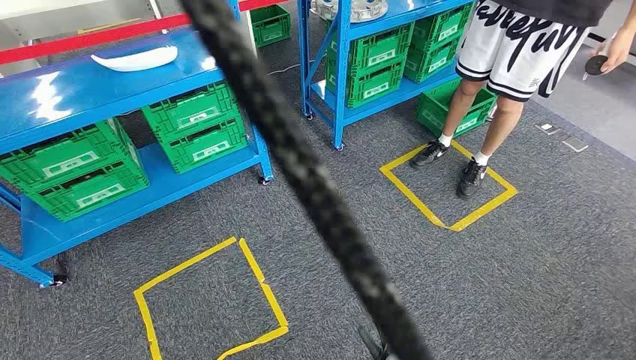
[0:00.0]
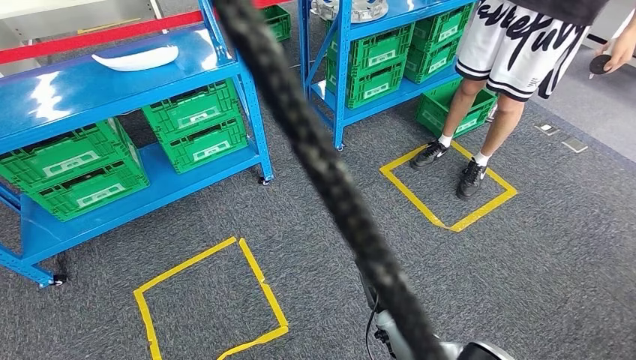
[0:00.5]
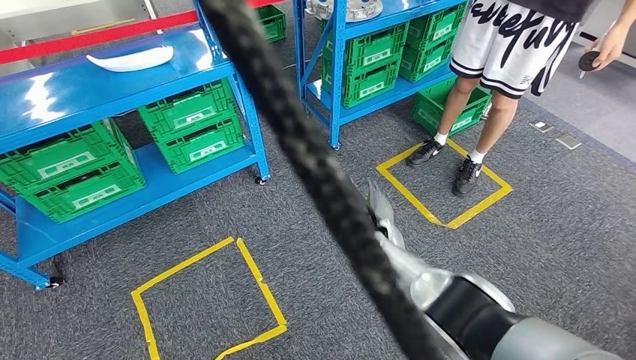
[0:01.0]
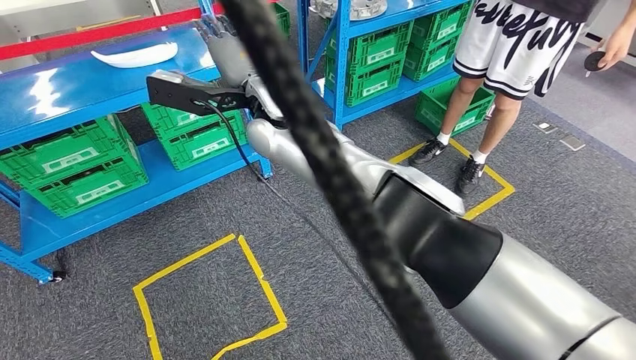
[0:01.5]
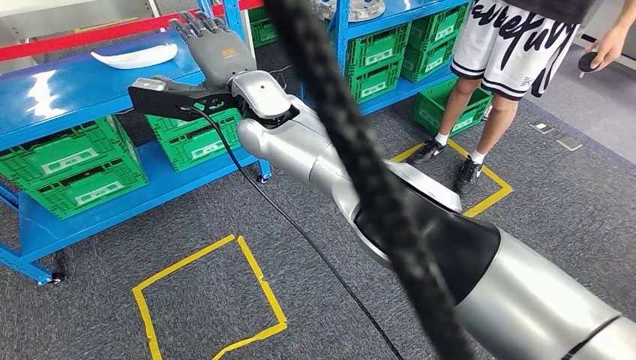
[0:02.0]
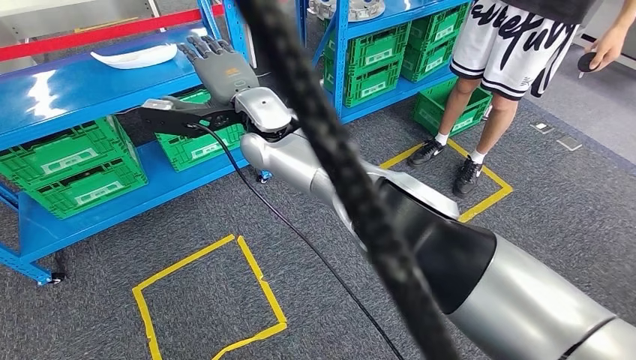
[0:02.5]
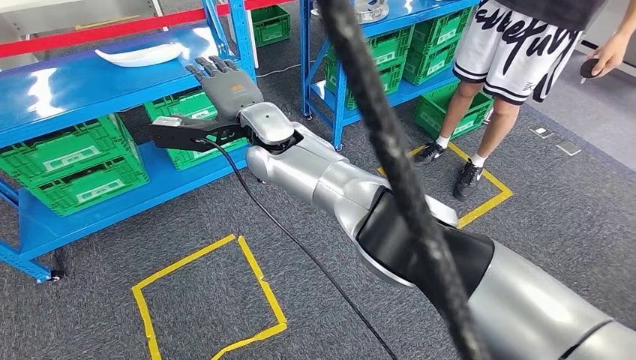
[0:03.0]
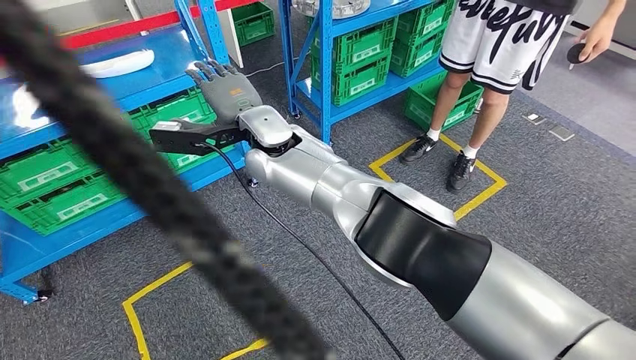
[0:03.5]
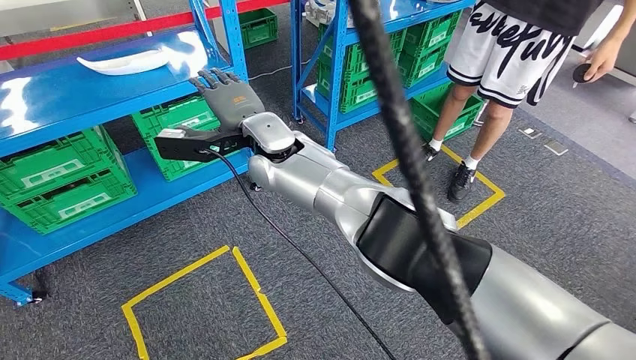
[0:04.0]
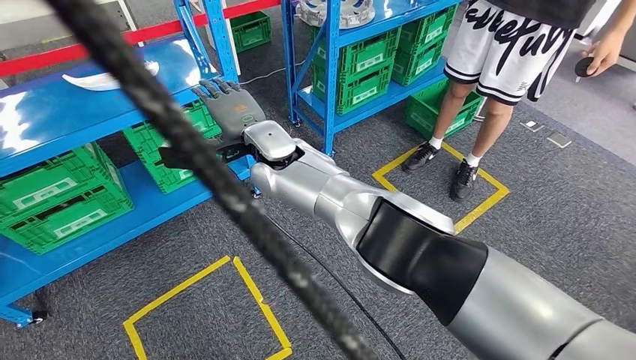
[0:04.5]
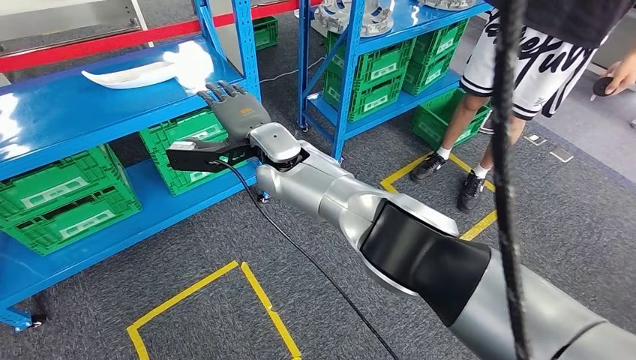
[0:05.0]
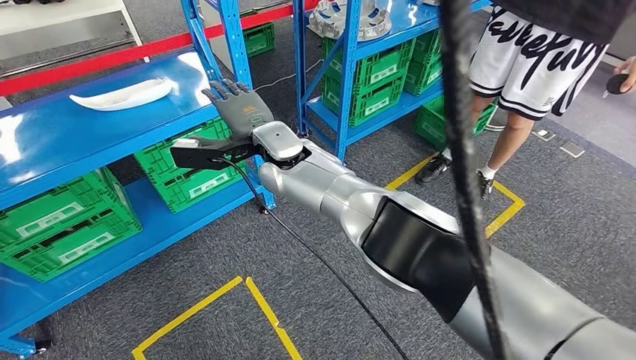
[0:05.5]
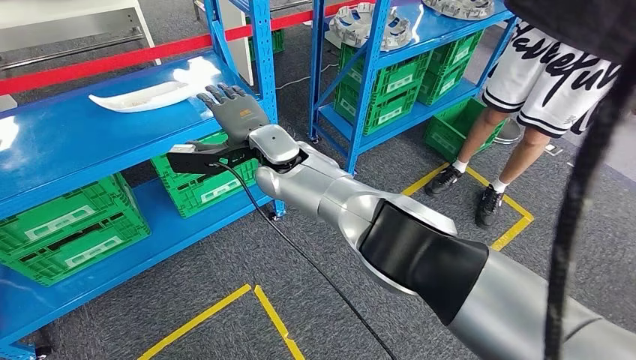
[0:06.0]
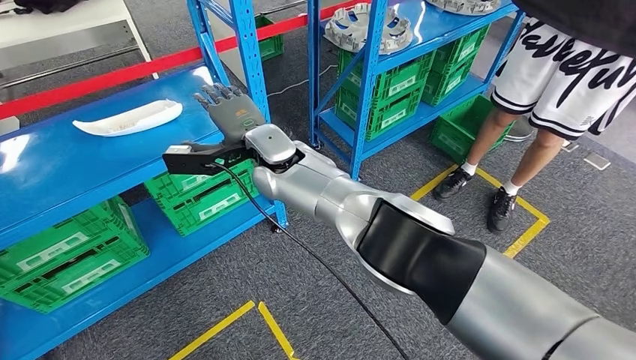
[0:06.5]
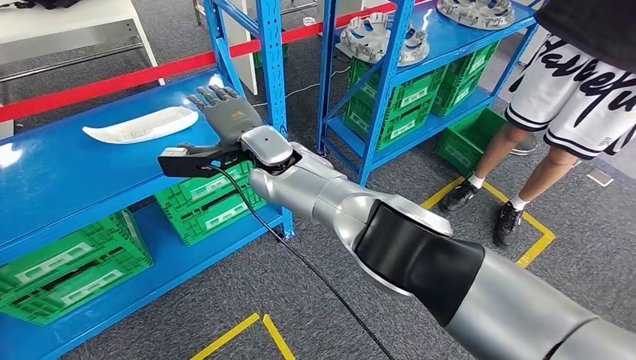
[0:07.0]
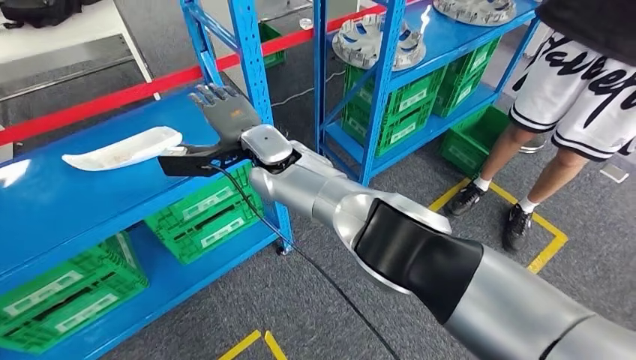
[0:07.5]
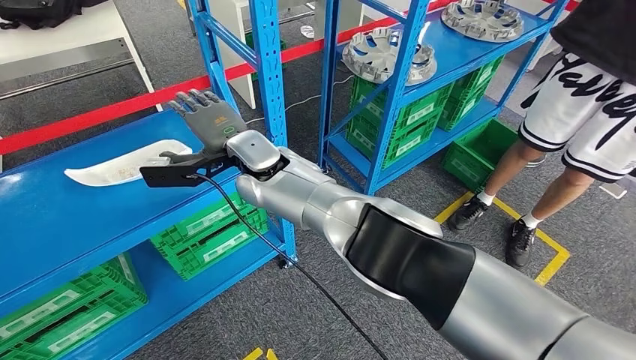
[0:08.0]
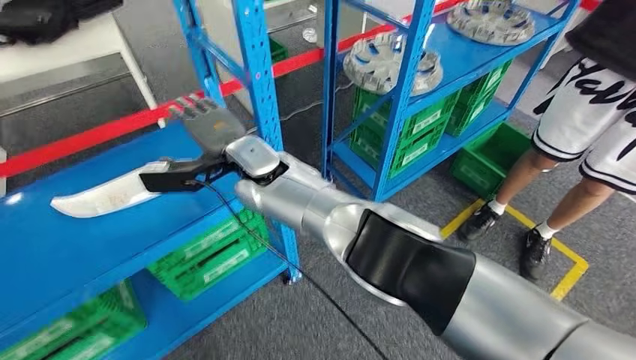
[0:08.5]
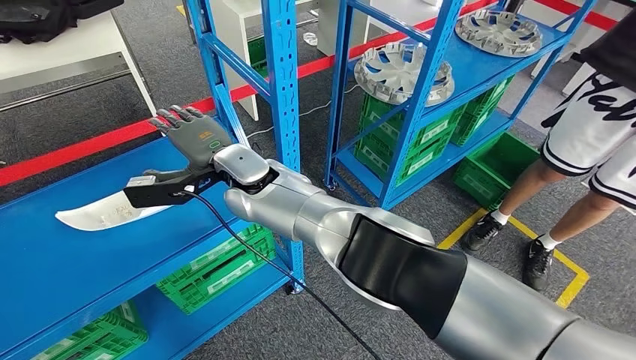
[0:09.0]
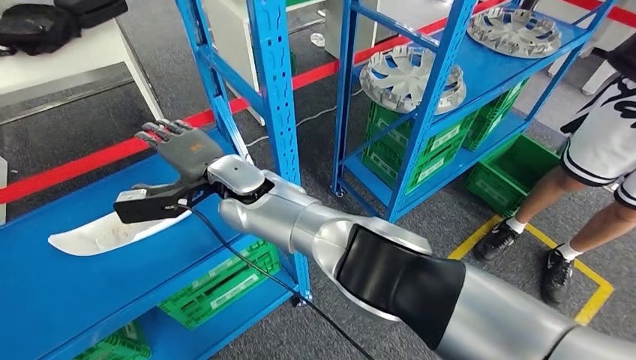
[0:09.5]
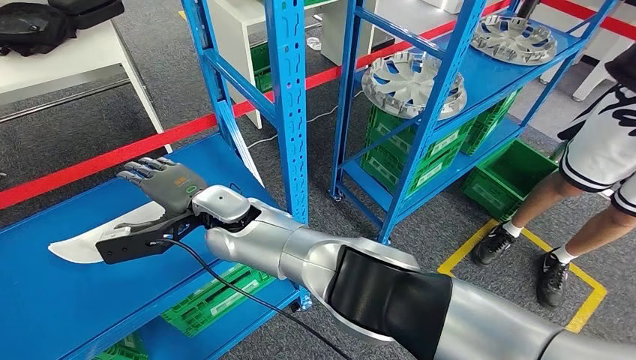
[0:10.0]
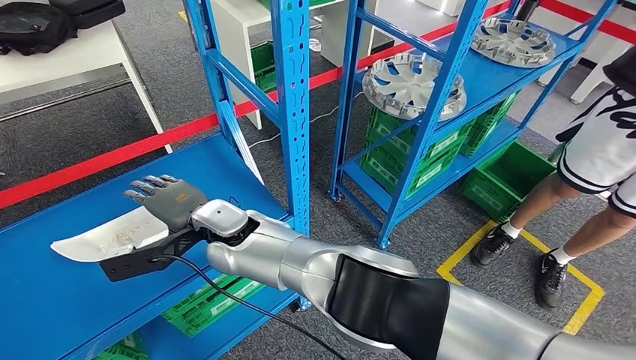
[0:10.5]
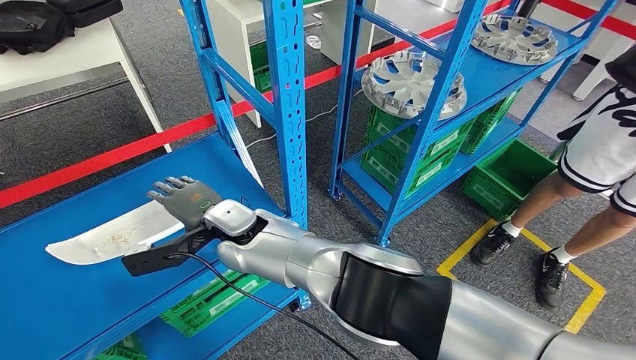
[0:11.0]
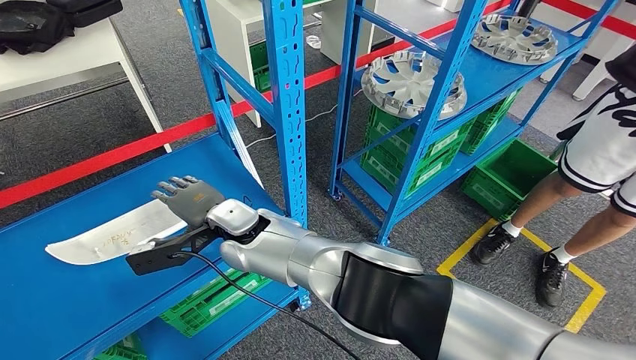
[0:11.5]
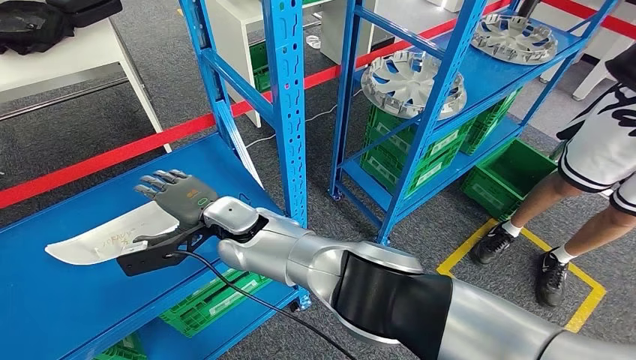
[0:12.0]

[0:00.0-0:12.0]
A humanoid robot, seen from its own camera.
0:10.0 to 0:12.0: The hands stay close to where they were, moving slightly.

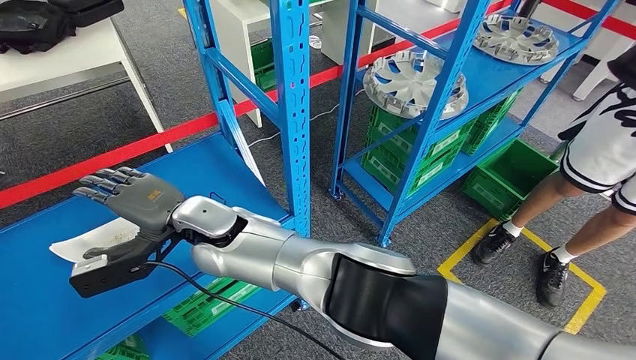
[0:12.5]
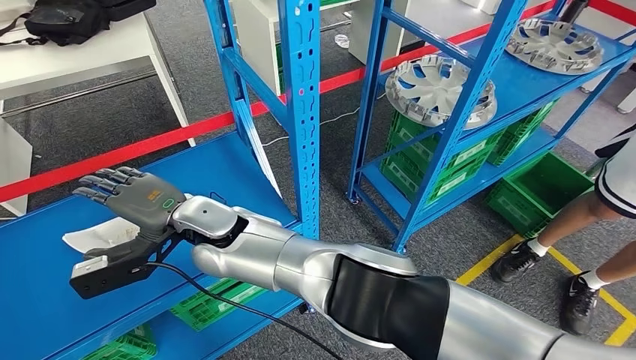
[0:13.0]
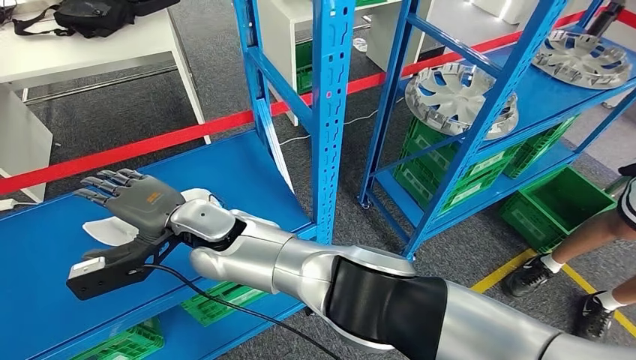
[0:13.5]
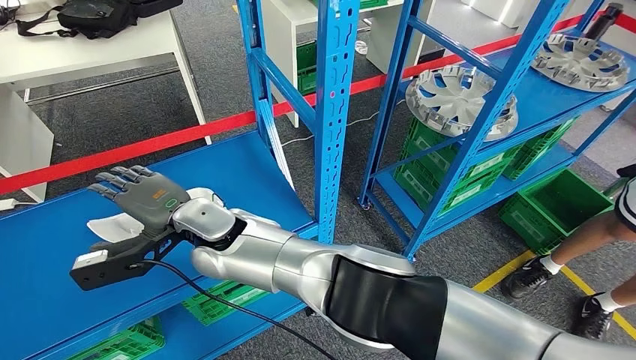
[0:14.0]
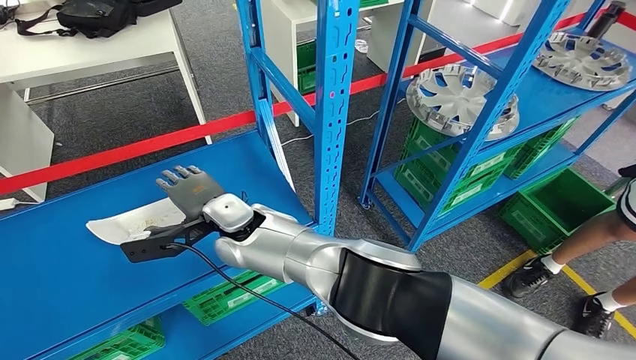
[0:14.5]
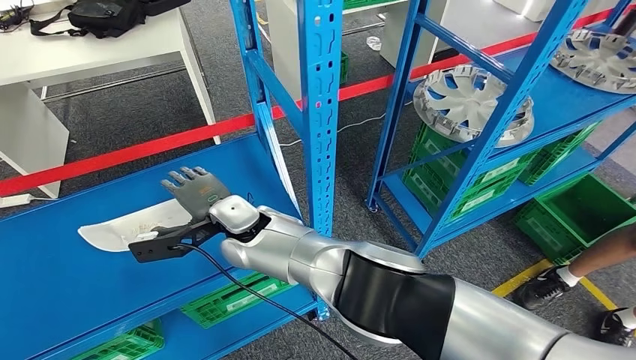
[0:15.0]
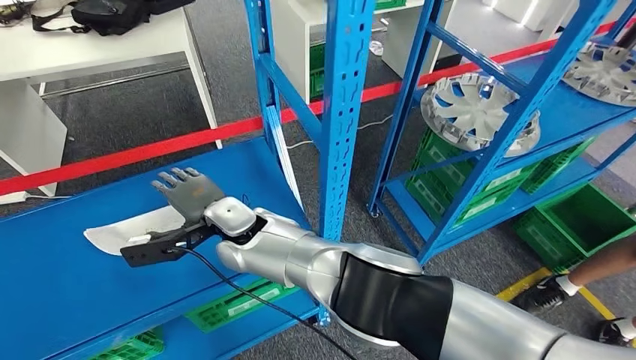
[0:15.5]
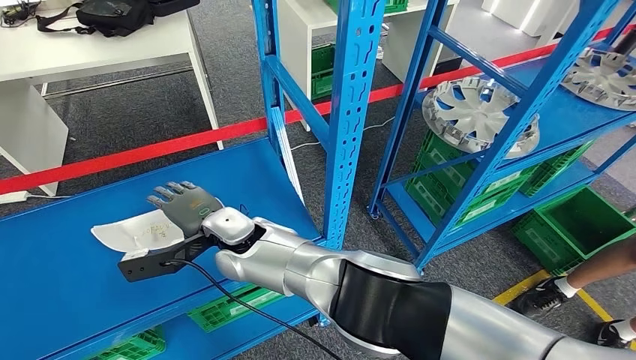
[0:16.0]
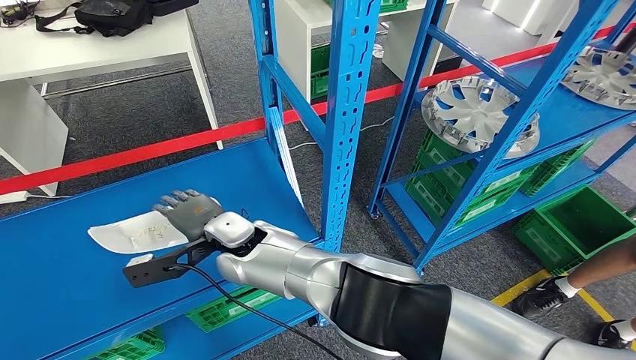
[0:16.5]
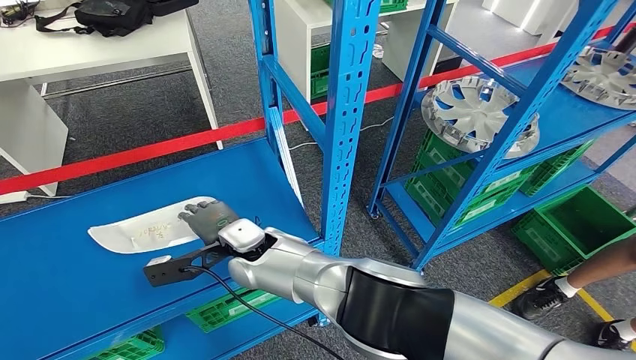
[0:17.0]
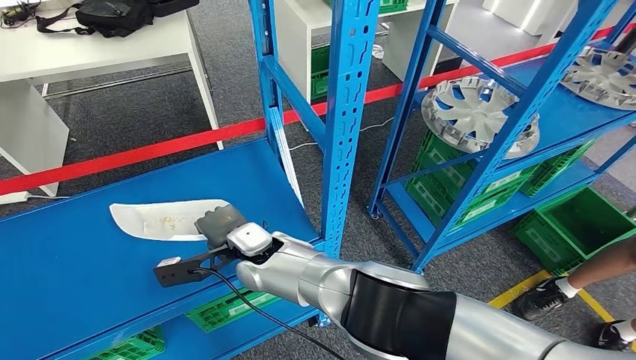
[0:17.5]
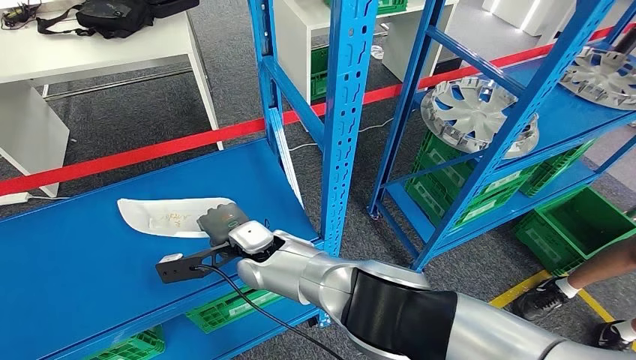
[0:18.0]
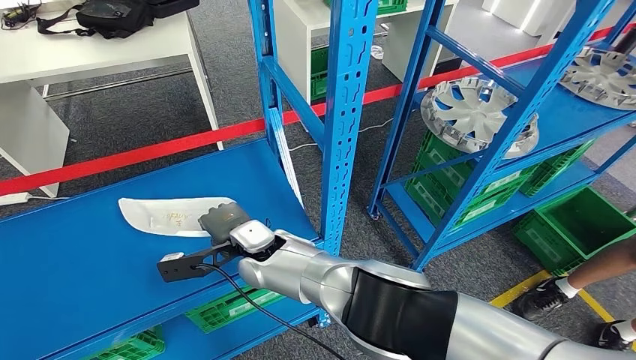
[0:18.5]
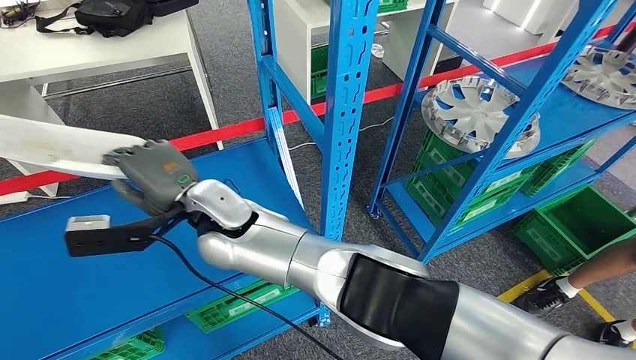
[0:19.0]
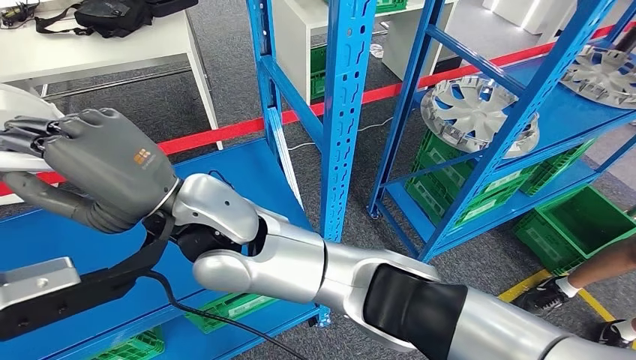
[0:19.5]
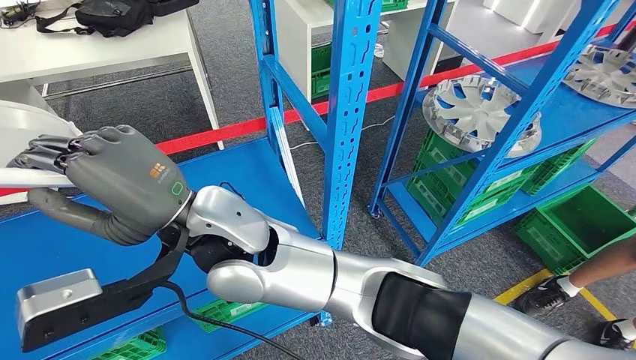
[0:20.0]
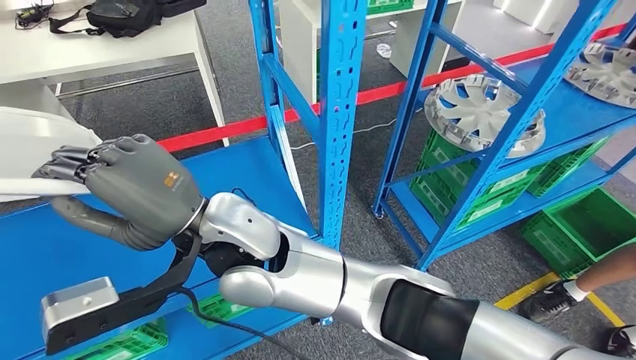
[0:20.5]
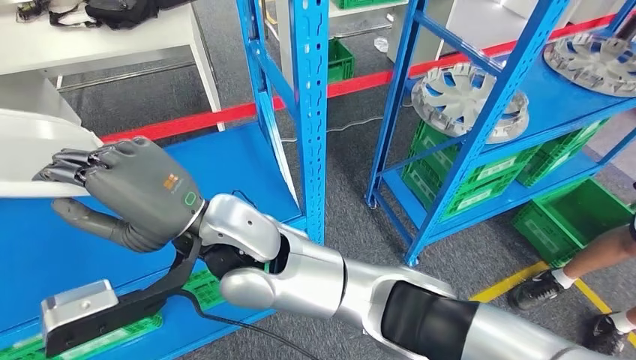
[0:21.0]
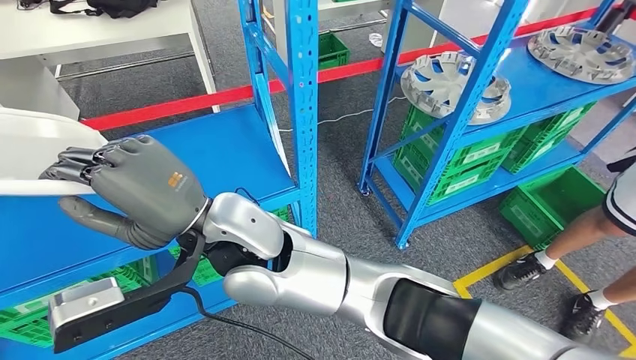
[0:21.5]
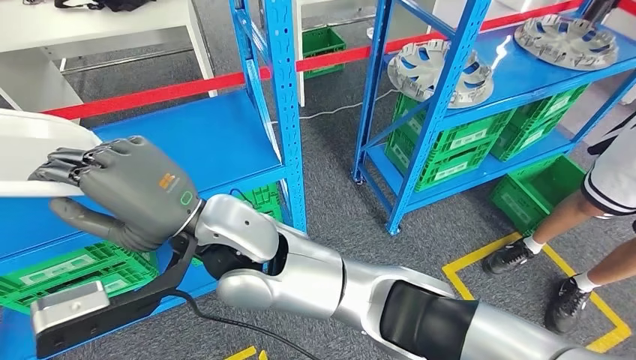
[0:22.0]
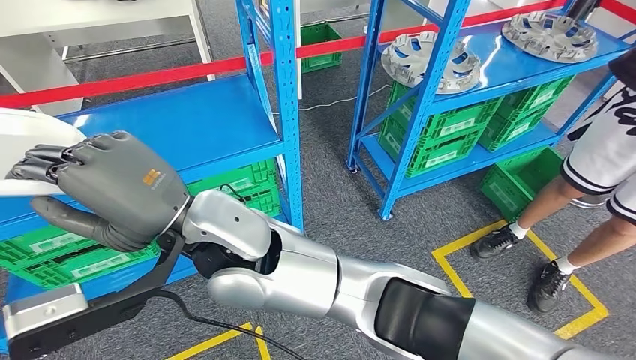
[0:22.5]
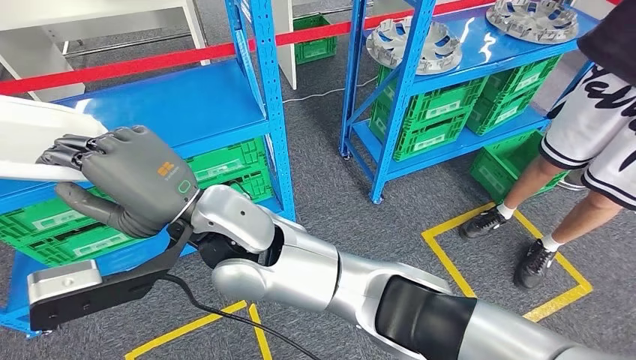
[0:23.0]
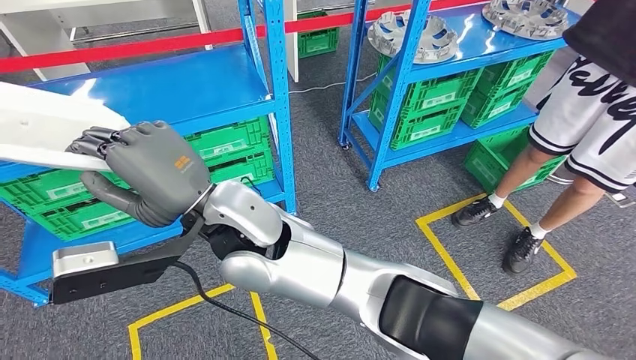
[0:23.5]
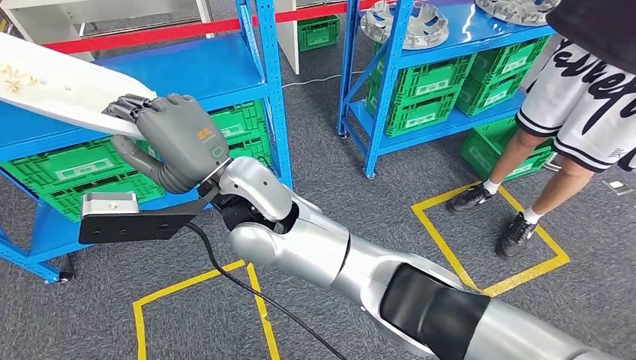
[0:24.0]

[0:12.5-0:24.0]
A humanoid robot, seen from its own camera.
Step, 0:12.5 to 0:19.5: Pick up the small component from the shelf.
0:16.5 to 0:18.5: The right hand moves approximately 5 cm.
